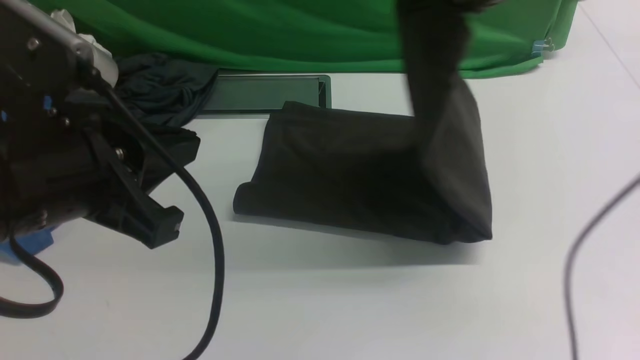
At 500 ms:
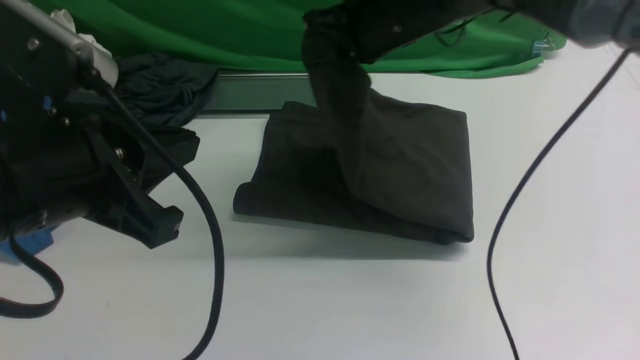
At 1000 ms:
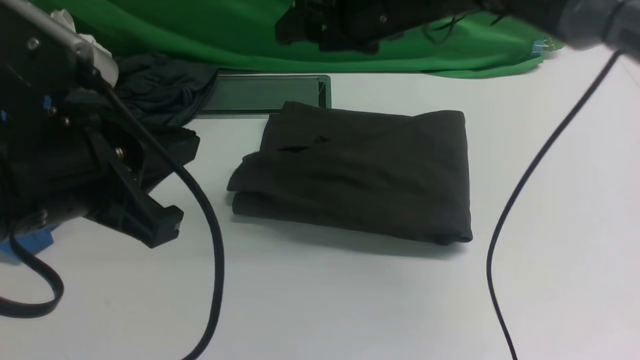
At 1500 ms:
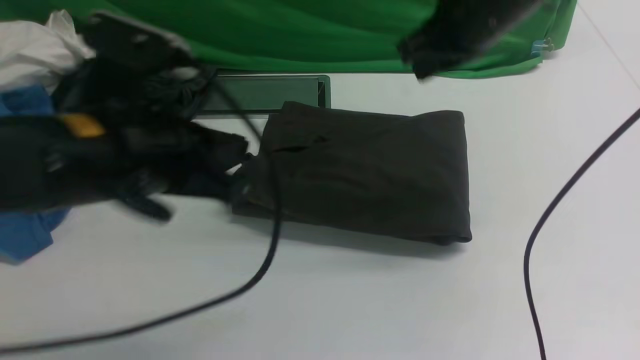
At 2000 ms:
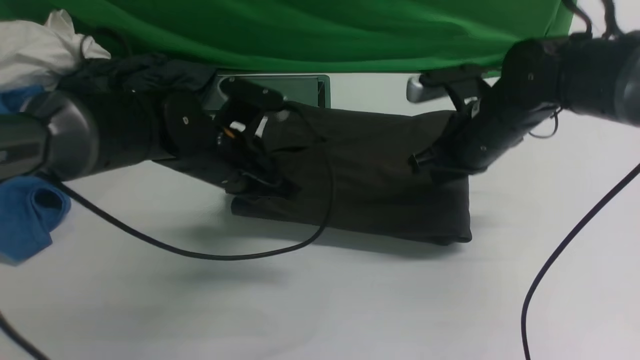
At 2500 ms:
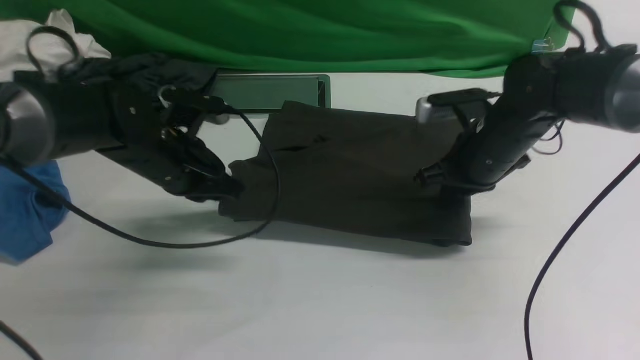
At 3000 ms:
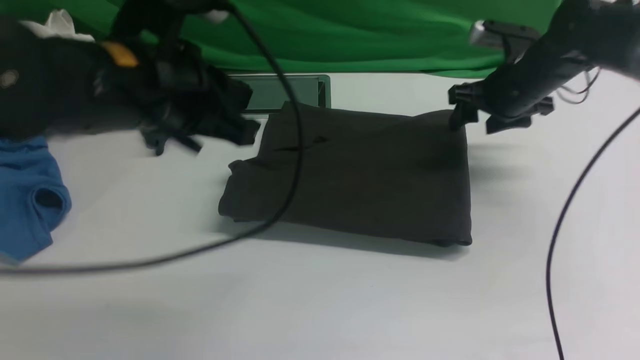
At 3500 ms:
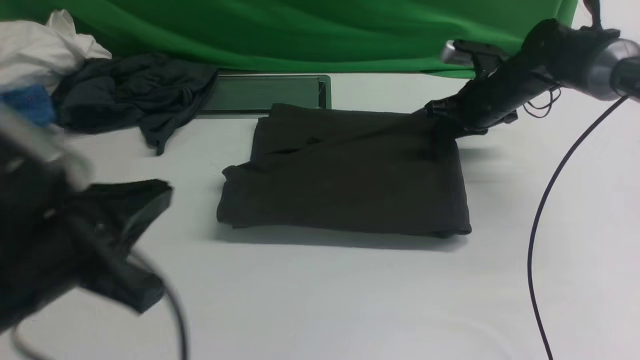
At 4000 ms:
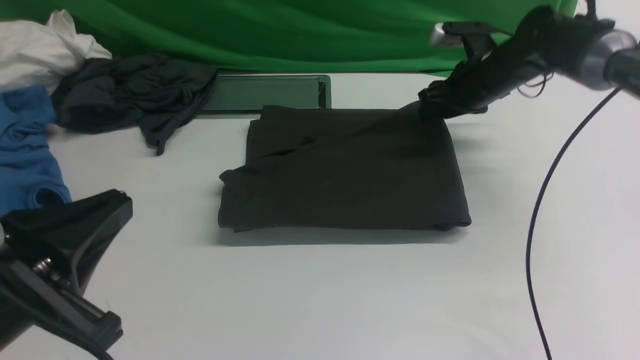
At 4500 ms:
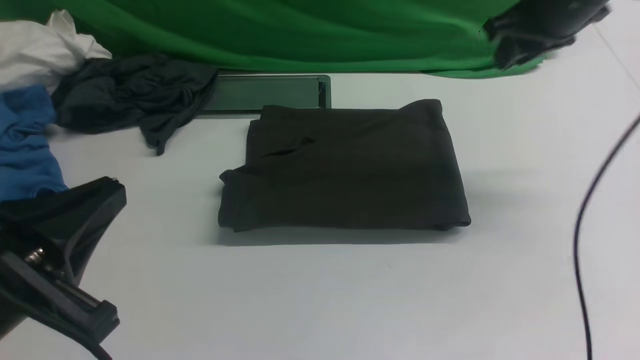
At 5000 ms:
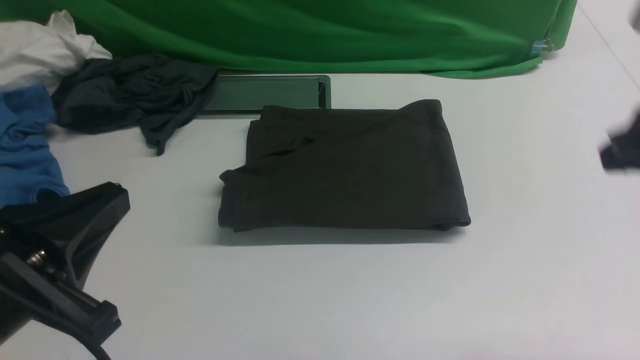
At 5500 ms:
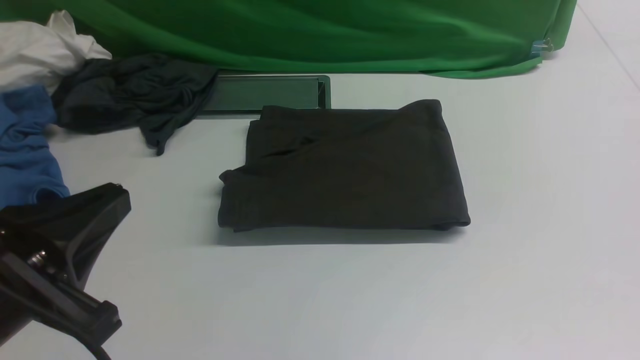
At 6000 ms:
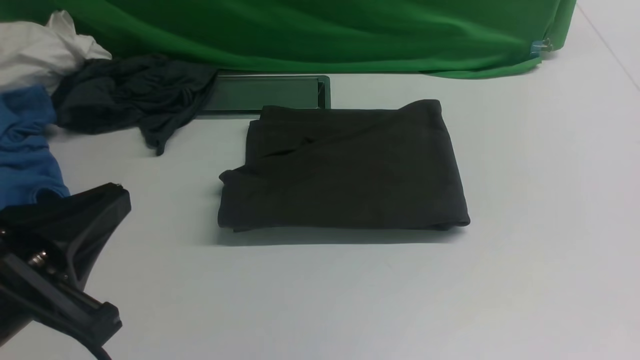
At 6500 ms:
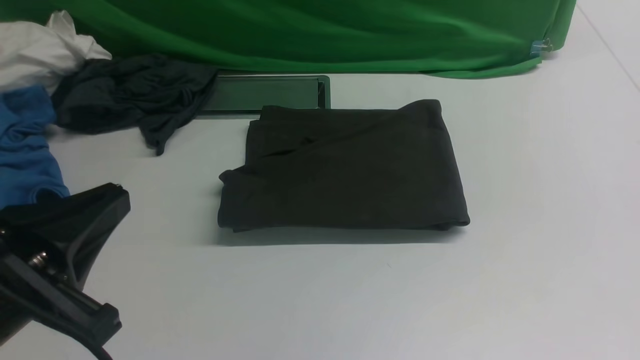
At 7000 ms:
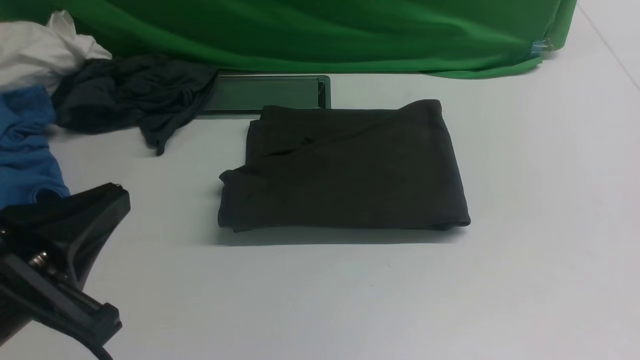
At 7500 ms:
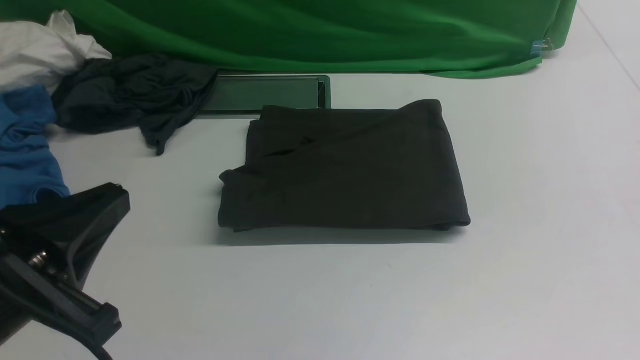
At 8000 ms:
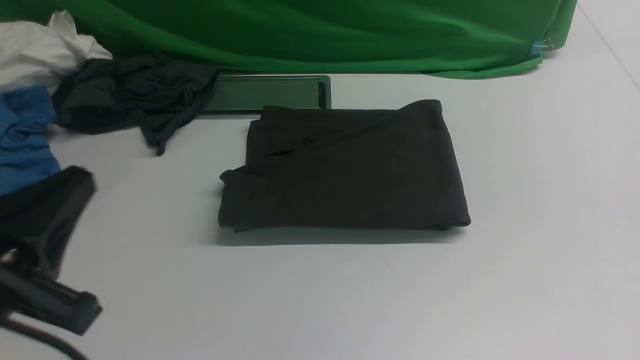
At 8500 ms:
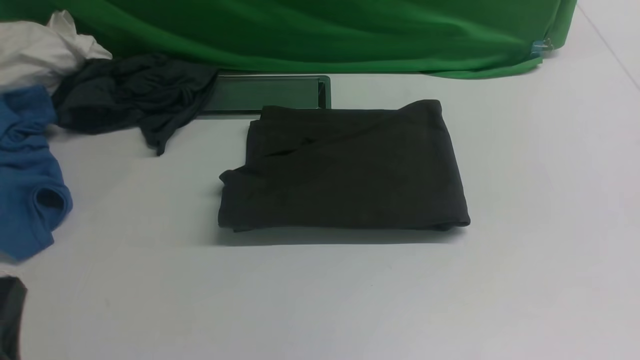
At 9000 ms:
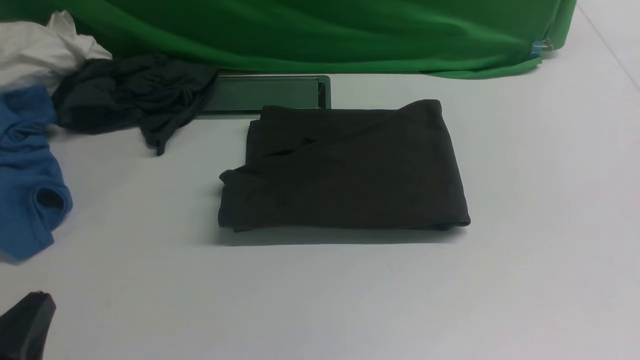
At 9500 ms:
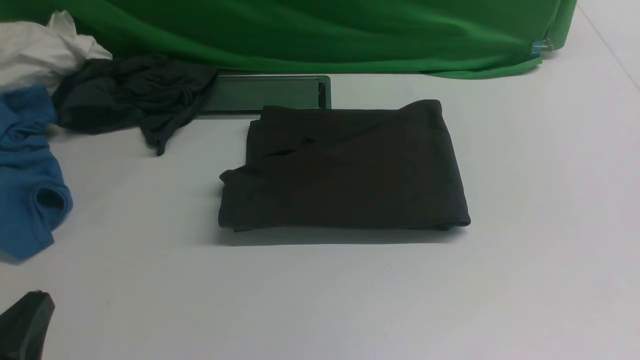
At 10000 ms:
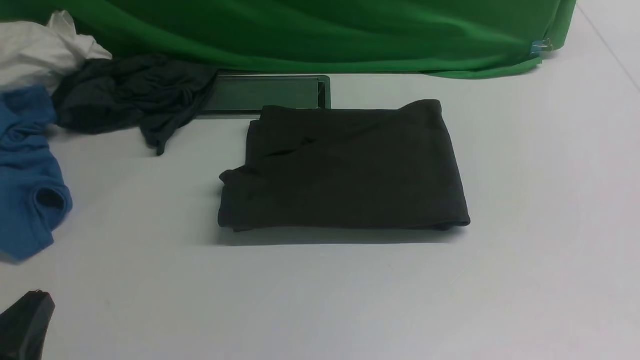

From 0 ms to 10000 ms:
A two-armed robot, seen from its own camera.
From 0 ms to 2000 ms: The left gripper travels forward and downward by some 25 cm. The right gripper goes about 15 cm downward, and opens and closes again.
From 2000 ms to 4000 ms: The left gripper heads backward, covering roughly 25 cm, while the right gripper is displaced forward by about 10 cm, and opens its fingers.
From 4000 ms to 6000 ms: The right gripper heads backward, covering roughly 40 cm, and closes.
From 8000 ms to 10000 ms: The left gripper is displaced downward by some 10 cm.

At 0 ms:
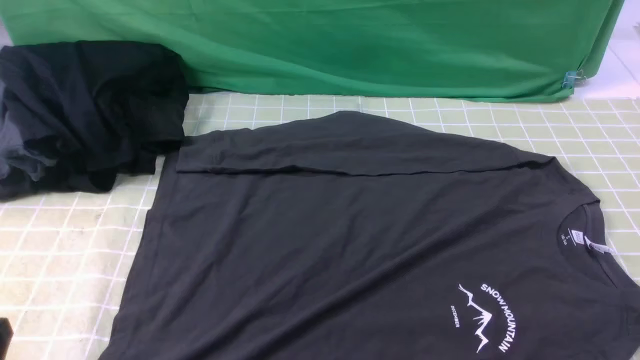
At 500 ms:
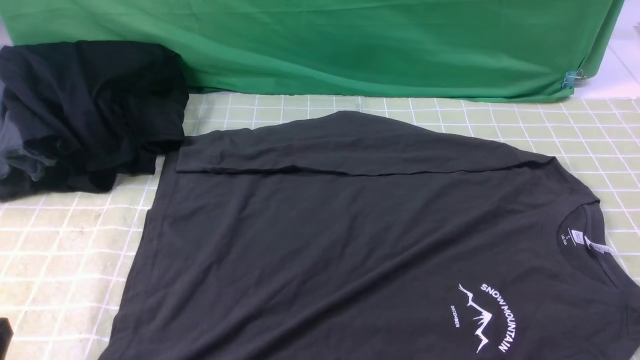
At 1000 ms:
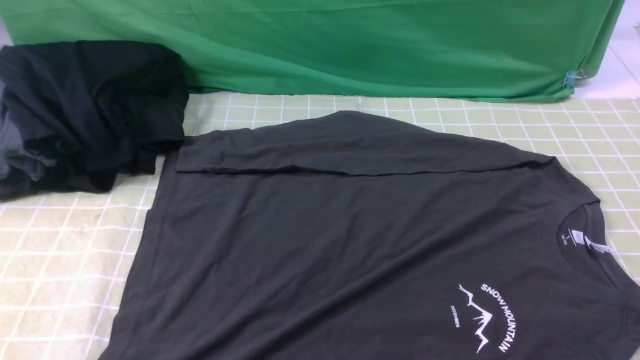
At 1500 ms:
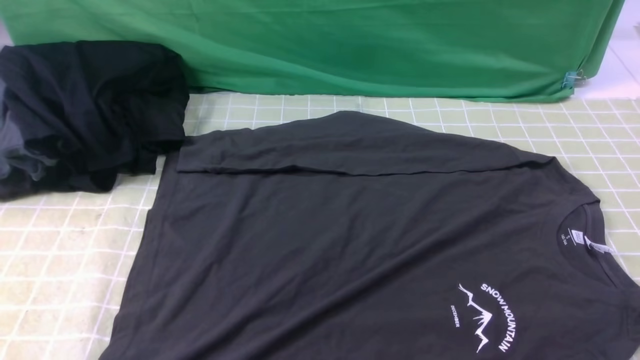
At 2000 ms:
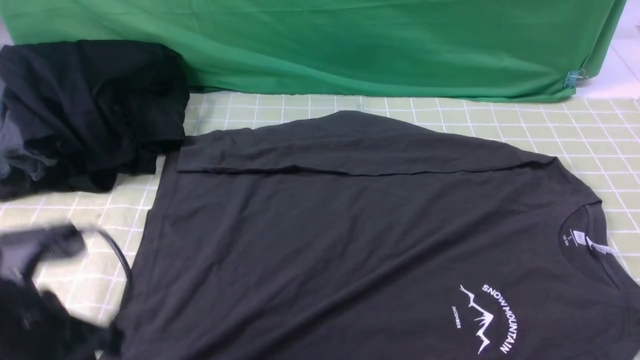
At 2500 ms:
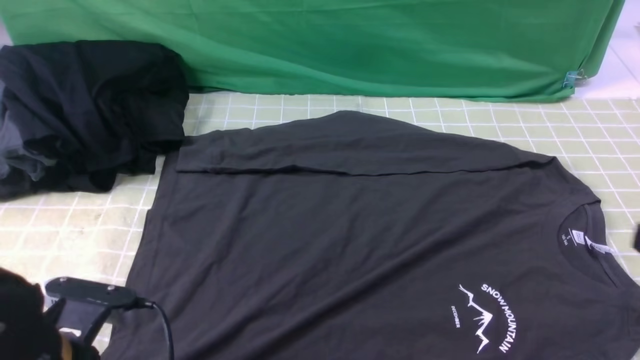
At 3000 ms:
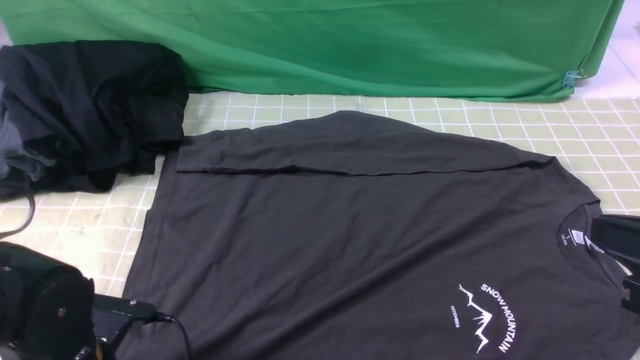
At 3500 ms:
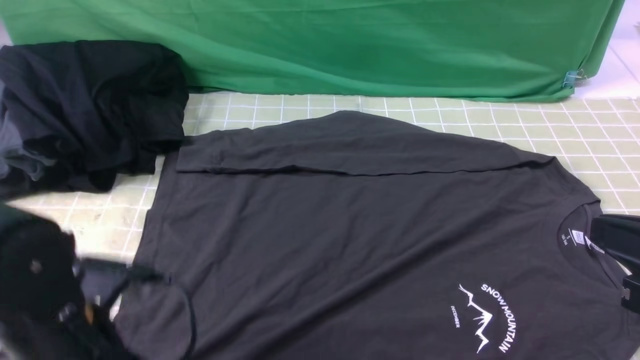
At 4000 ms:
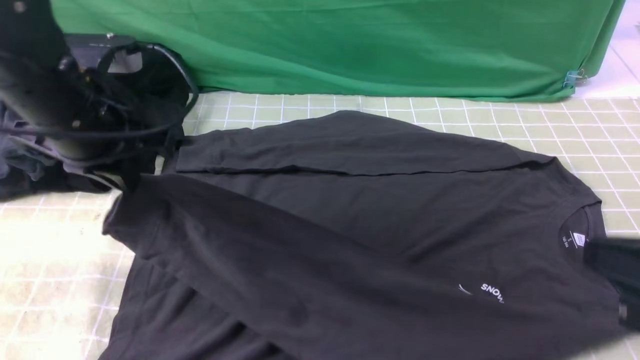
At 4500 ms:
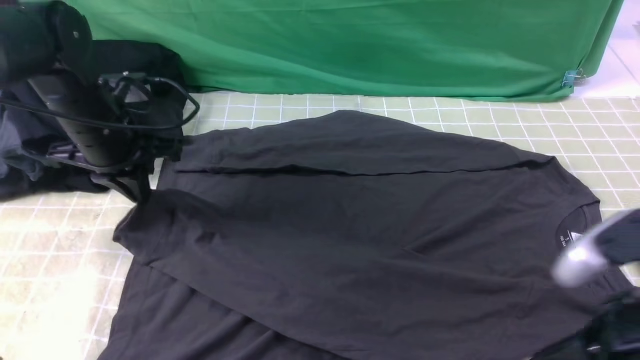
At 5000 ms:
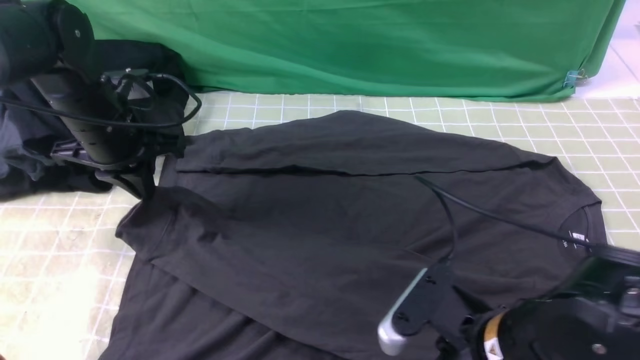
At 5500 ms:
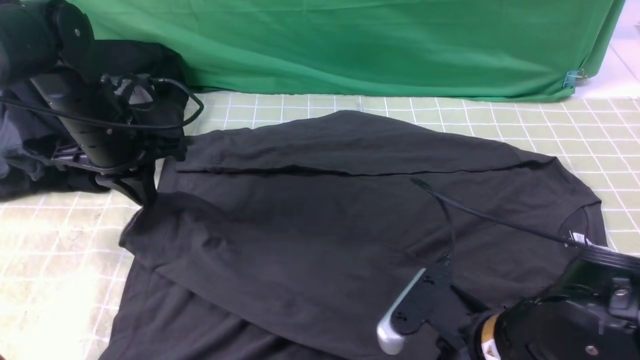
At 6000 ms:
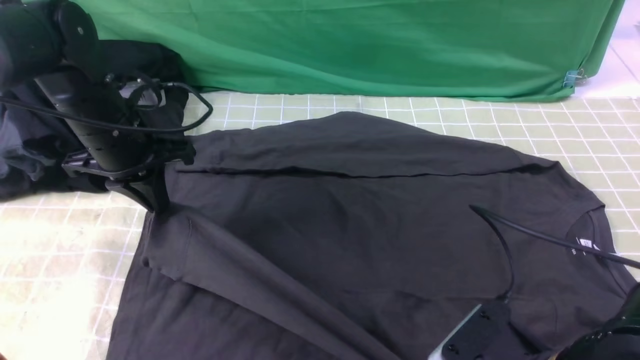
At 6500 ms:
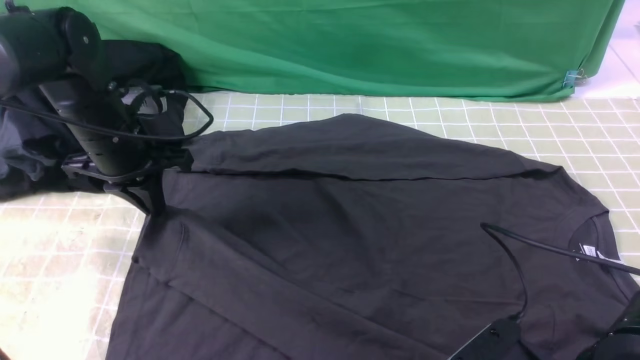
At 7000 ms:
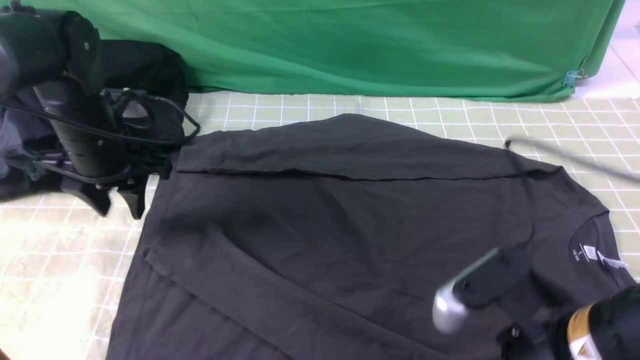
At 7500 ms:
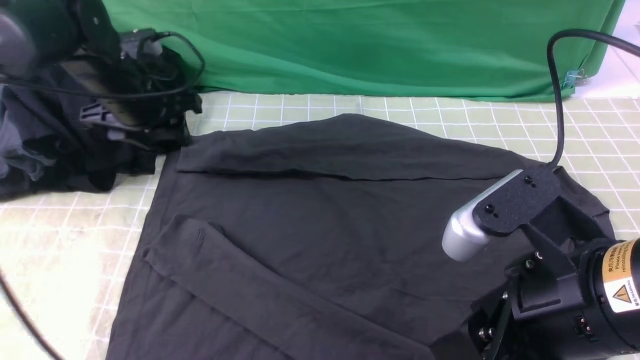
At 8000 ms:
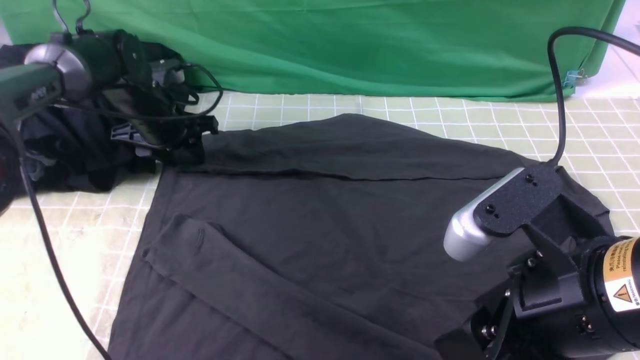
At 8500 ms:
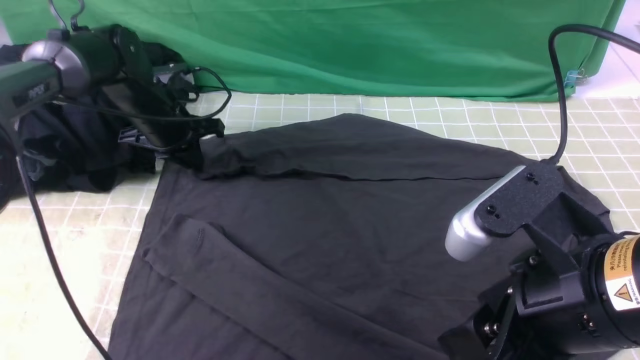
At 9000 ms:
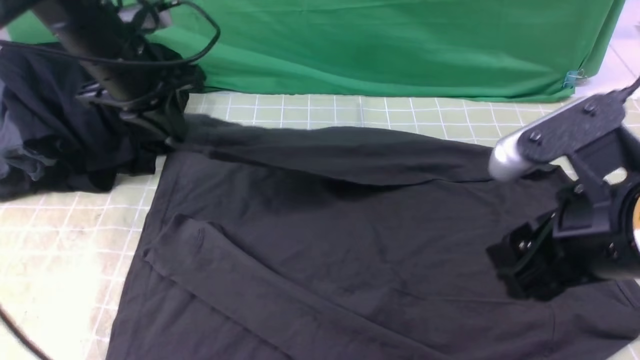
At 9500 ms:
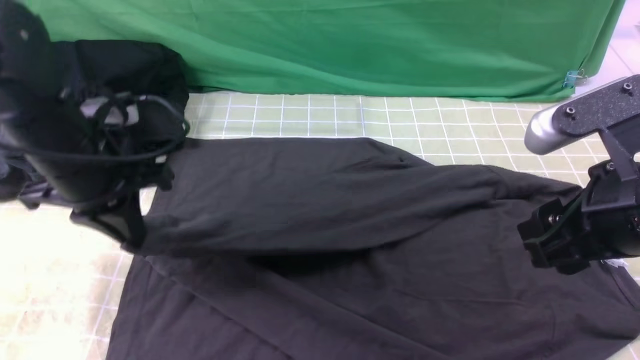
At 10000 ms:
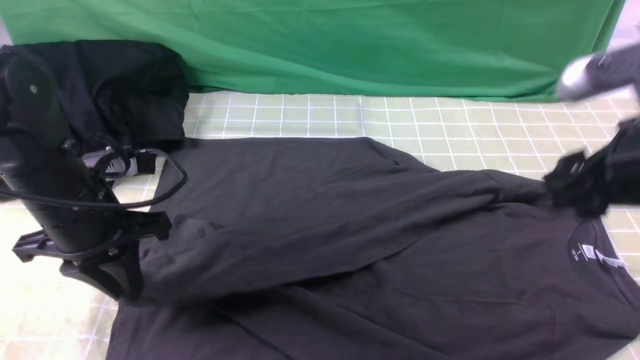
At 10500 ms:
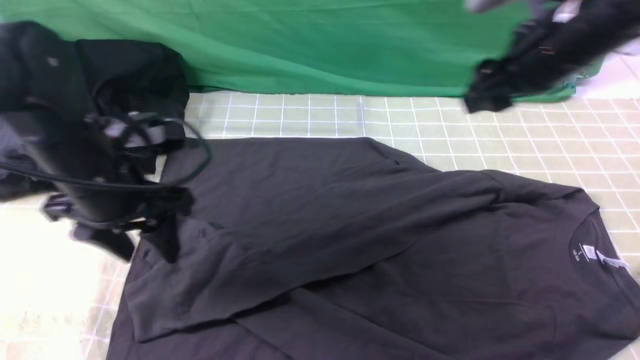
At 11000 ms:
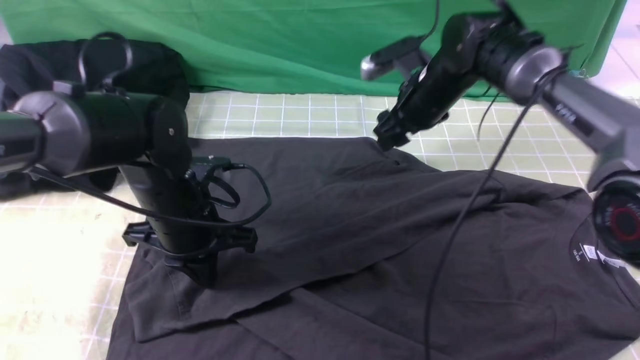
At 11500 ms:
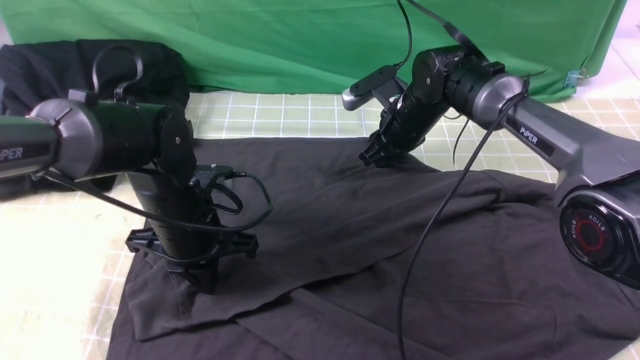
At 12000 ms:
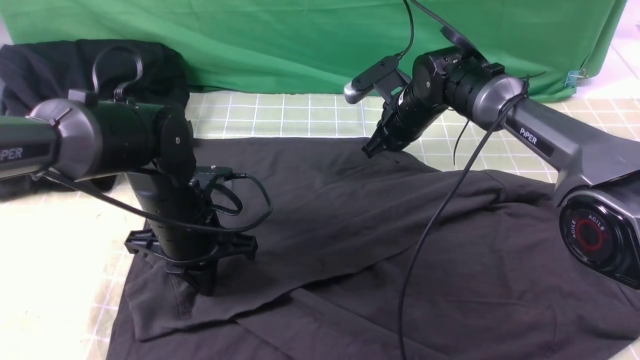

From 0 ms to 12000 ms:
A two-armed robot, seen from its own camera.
Step, from 0 ms to 3000 ms: use the left arm to clamp the cuff closest to it.
Step, from 3500 ms to 7000 ms: use the left arm to drag and place the cuff at the centered position on the left edge of the fabric.
Step, from 7500 ms to 8000 ms: use the left arm to clamp the cuff farthest from it.
Step, from 8500 ms to 10000 ms: use the left arm to drag and drop the cuff onto the cuff closest to the left arm.
From 0 ms to 2000 ms: The left gripper shifts approximately 10 cm forward, and reaches roughly 15 cm upward, then returns; the right gripper heads upward, covering about 5 cm.
From 2000 ms to 4000 ms: The left gripper goes some 15 cm forward, and opens, then closes once more; the right gripper is displaced forward, to the left and upward by roughly 10 cm.
From 4000 ms to 6000 ms: The right gripper travels downward and to the left by roughly 15 cm, and opens, then closes again. The left gripper heads downward and forward, covering about 10 cm.
From 6000 ms to 8000 ms: The left gripper heads forward and downward, covering about 10 cm, and opens its fingers, while the right gripper travels upward by approximately 10 cm, and opens up.
From 8000 ms to 10000 ms: The left gripper is displaced backward by approximately 20 cm, and closes, then opens again, while the right gripper goes roughly 10 cm forward and to the right.
From 10000 ms to 12000 ms: The left gripper shifts roughly 10 cm to the right and downward, and closes up. The right gripper goes approximately 35 cm forward, downward and to the left, and closes up.
